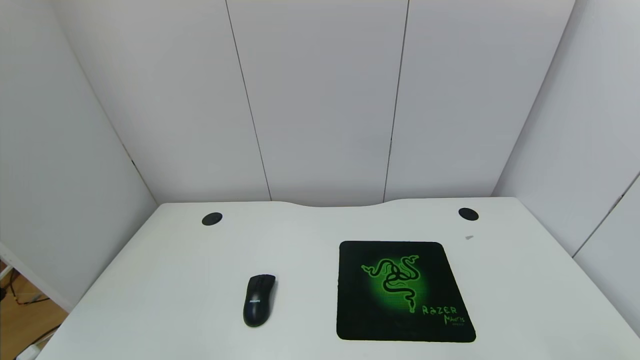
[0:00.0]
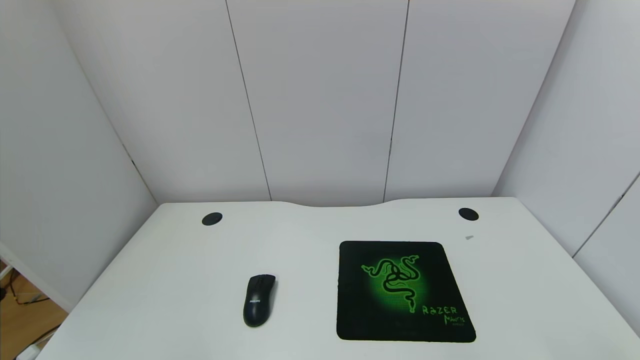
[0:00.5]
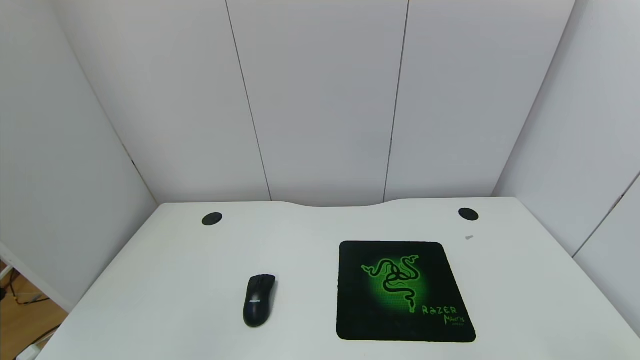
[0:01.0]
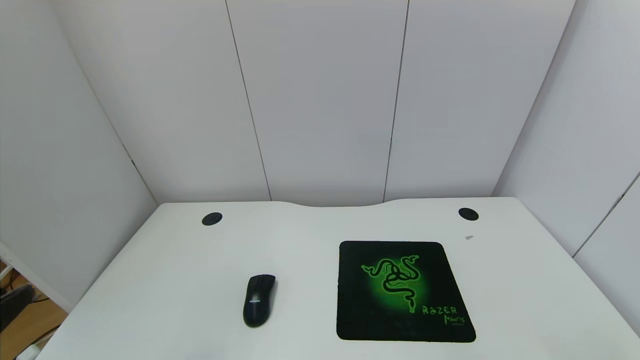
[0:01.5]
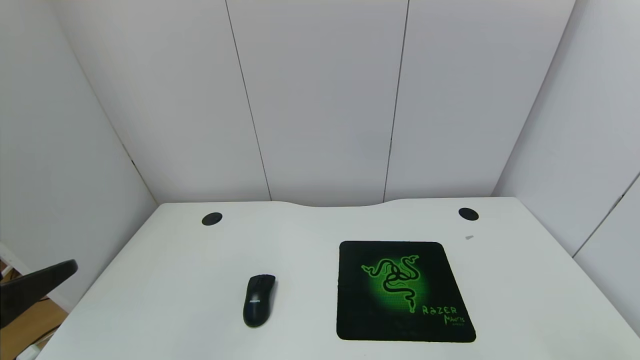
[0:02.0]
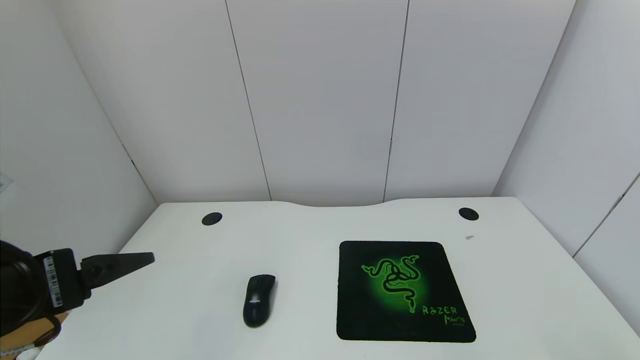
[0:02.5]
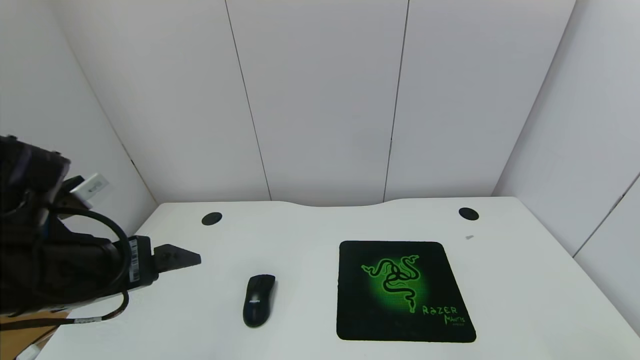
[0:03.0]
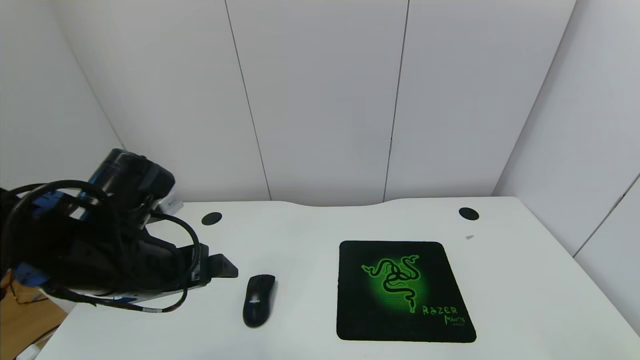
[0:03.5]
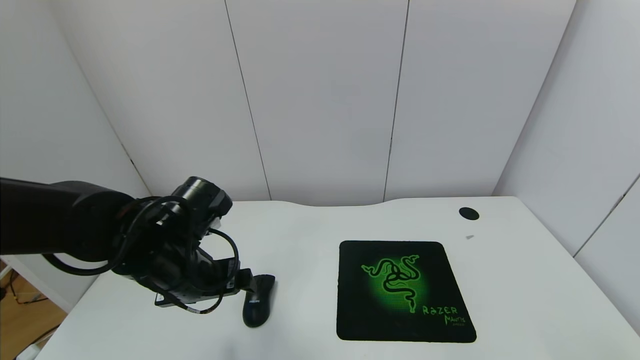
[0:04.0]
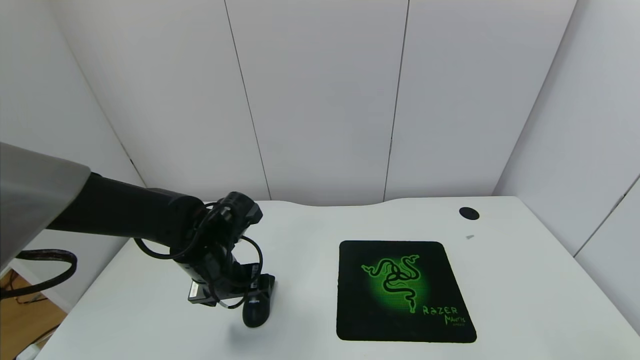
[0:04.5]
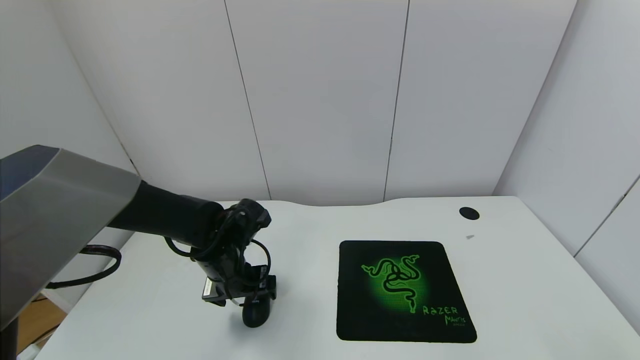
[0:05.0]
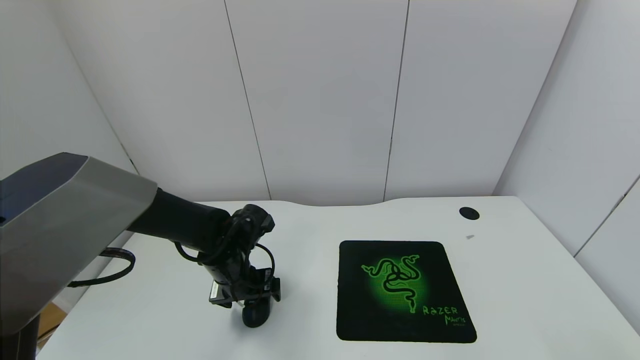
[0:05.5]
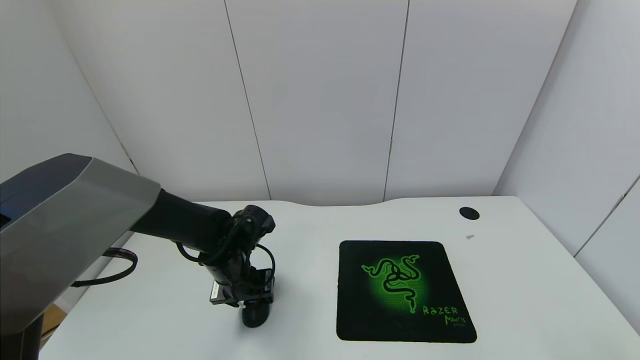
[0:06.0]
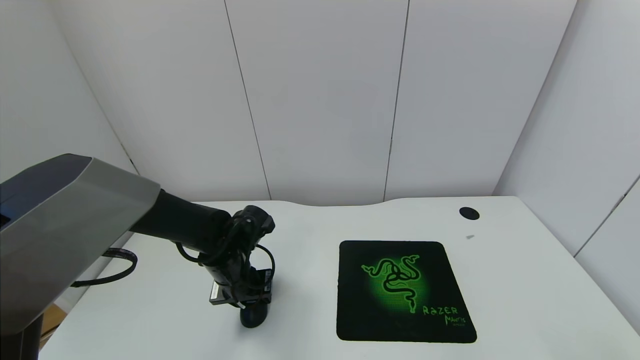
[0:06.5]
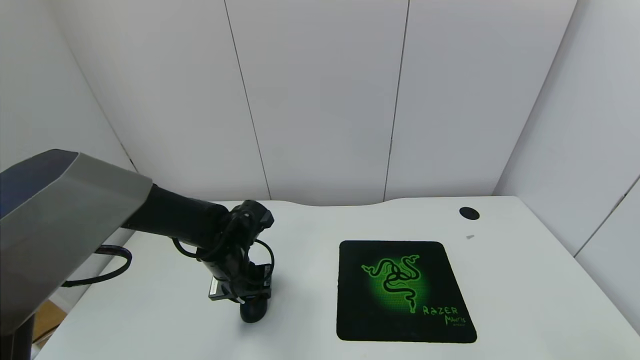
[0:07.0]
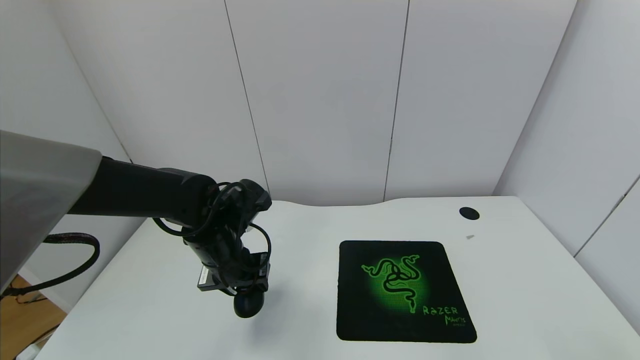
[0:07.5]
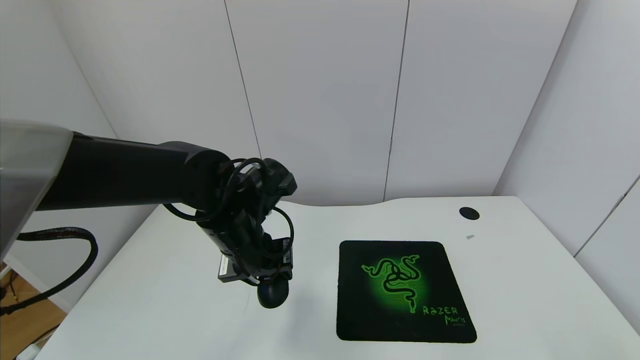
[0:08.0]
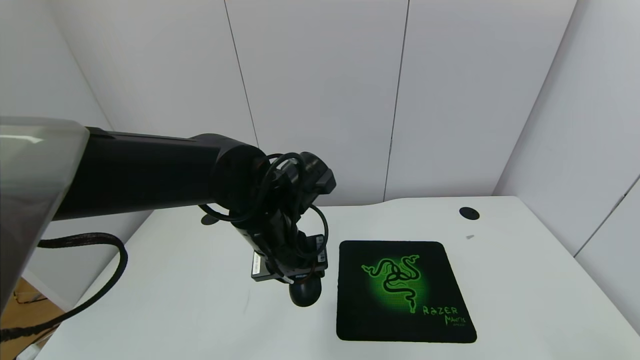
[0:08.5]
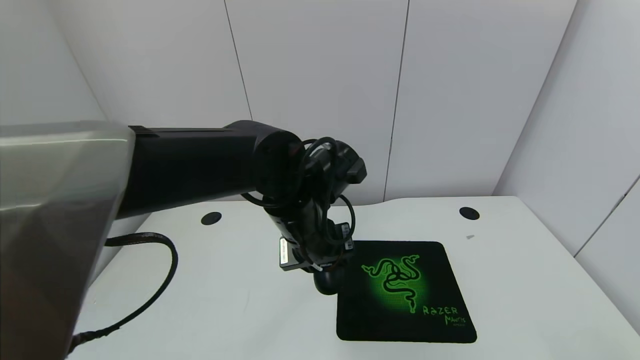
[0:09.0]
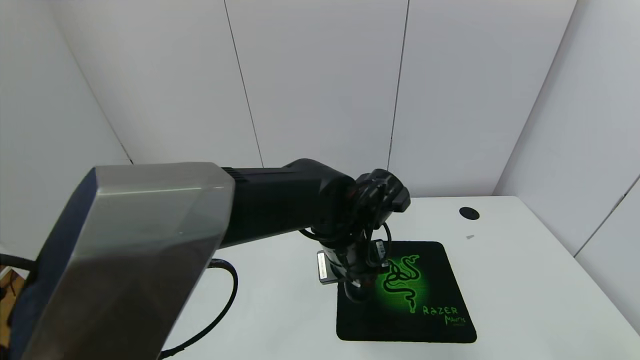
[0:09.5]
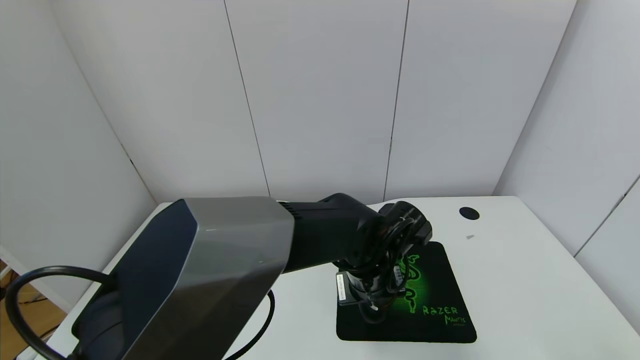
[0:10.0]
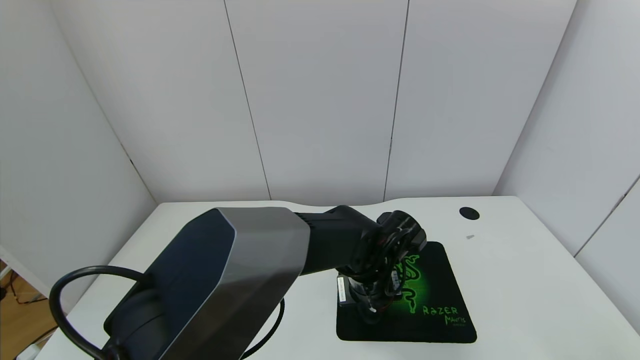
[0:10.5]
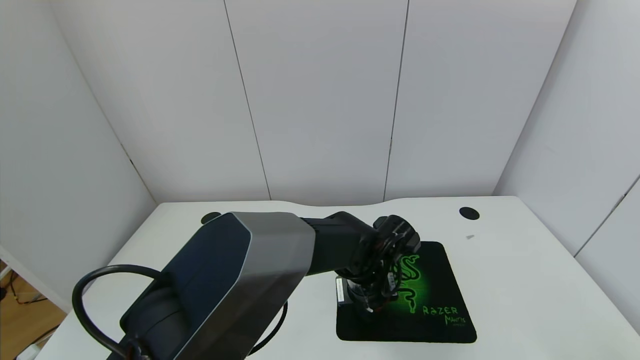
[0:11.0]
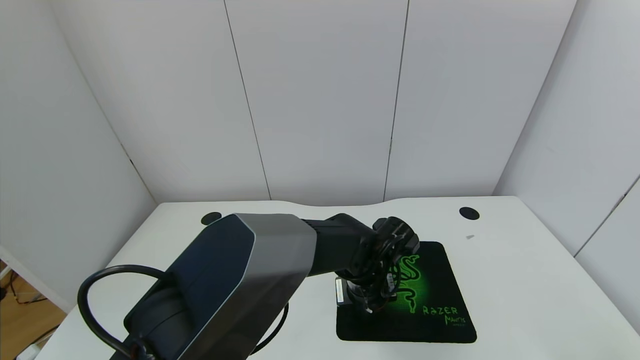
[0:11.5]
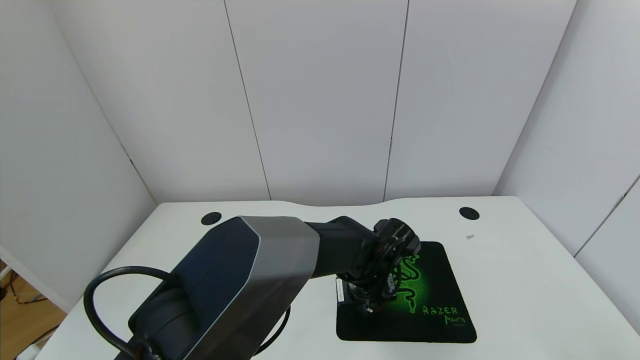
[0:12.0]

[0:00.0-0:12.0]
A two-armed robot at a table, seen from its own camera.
Task of the whole recording: use the gripper to move the mouse from one side of the table to the mouse pad on the opposite side.
Step, 0:00.0 to 0:06.5: Grasp the mouse with the left gripper.
0:00.0 to 0:02.0: The left gripper travels upward and forward by some 20 cm.
0:02.0 to 0:04.0: The left gripper is displaced forward, to the right and downward by some 25 cm.
0:04.0 to 0:06.0: The left gripper goes some 10 cm downward and forward, and closes up.
0:06.0 to 0:08.0: The left gripper heads upward, covering approximately 10 cm, and closes its fingers.
0:08.0 to 0:10.0: The left gripper goes some 15 cm to the right.
0:10.0 to 0:12.0: The left gripper goes some 5 cm downward.

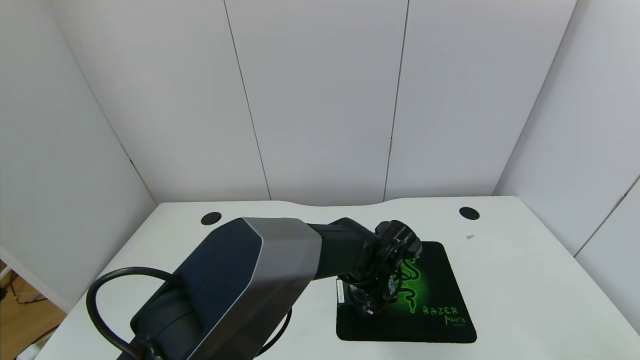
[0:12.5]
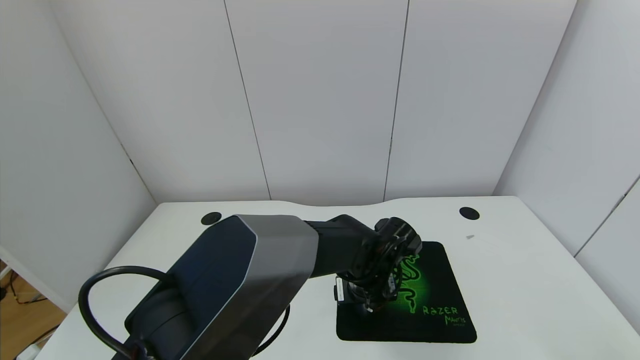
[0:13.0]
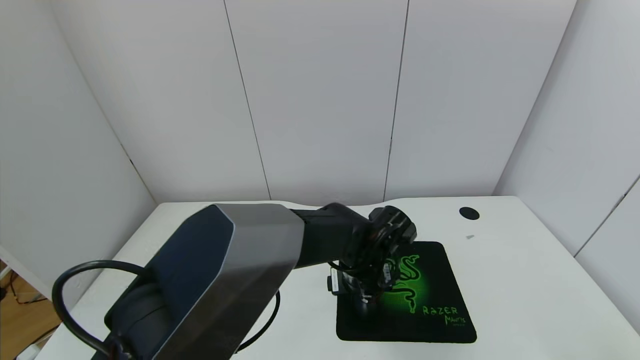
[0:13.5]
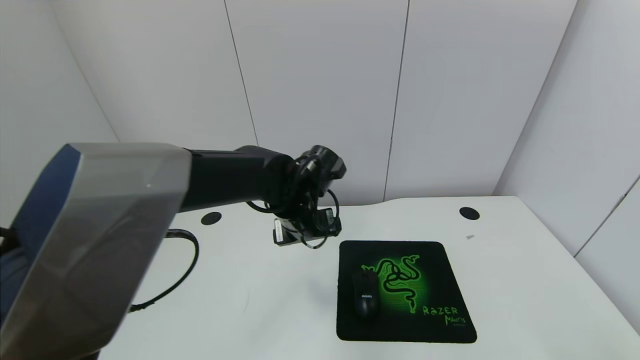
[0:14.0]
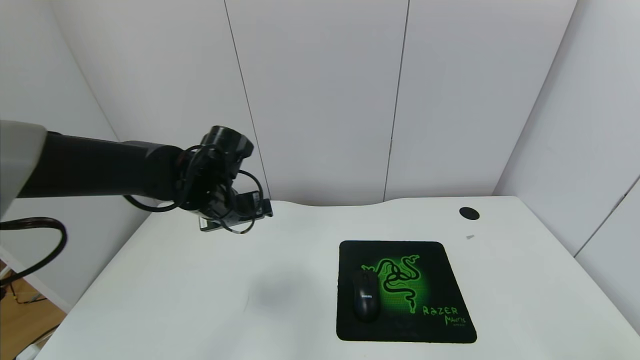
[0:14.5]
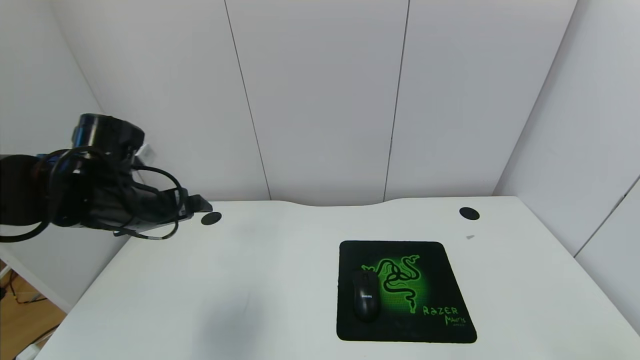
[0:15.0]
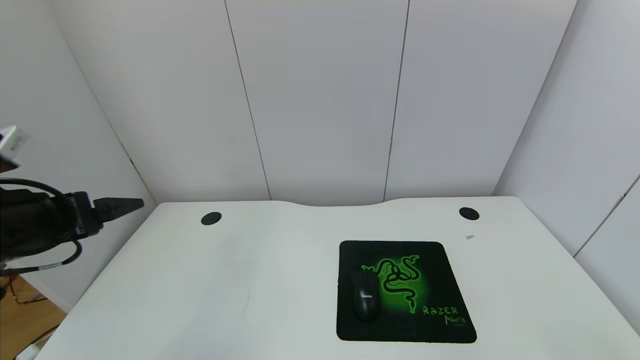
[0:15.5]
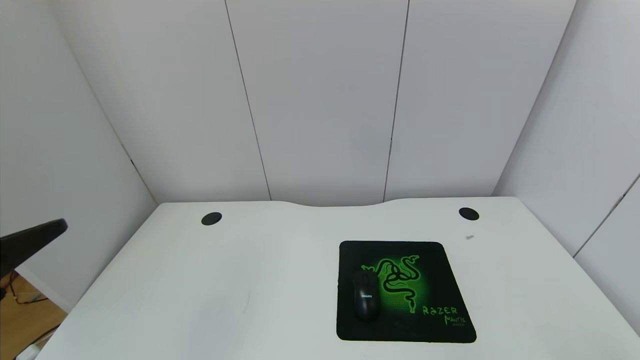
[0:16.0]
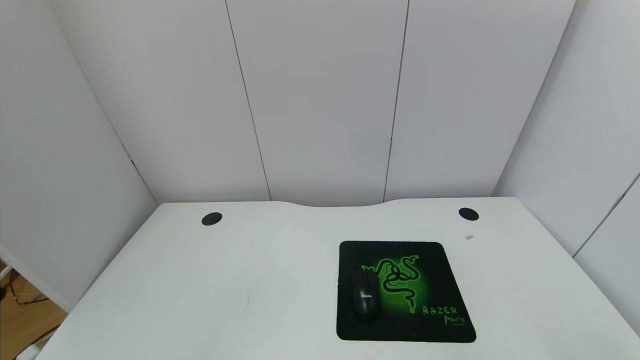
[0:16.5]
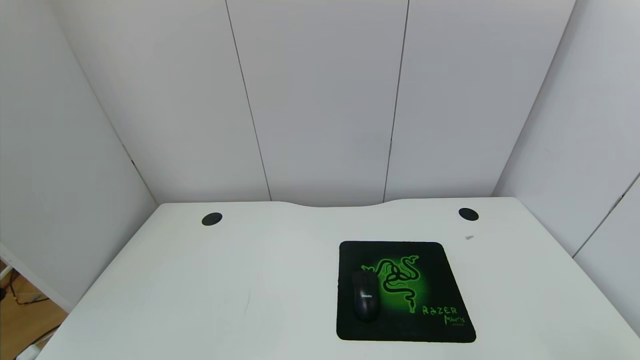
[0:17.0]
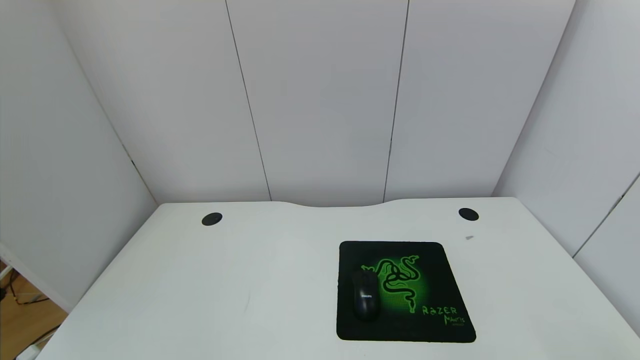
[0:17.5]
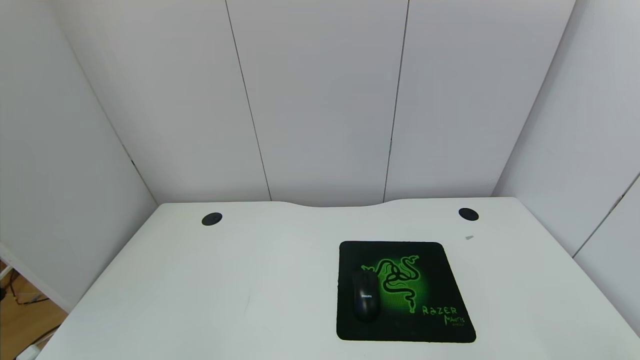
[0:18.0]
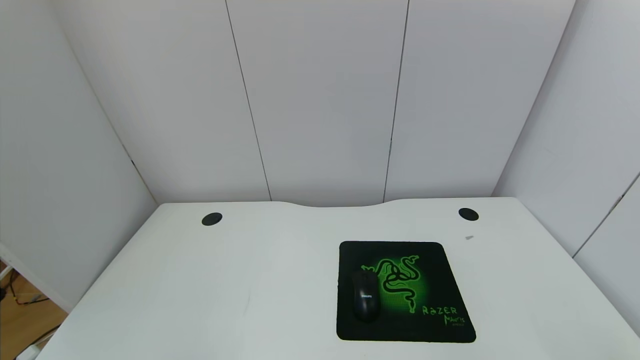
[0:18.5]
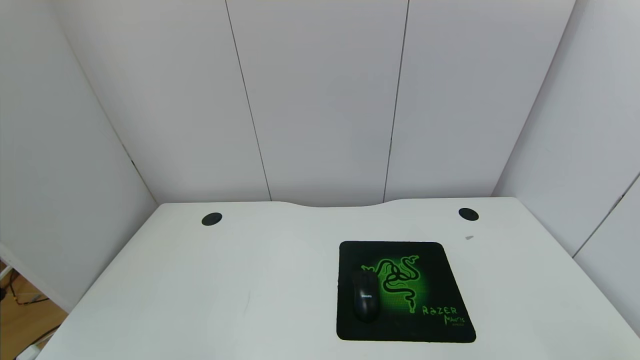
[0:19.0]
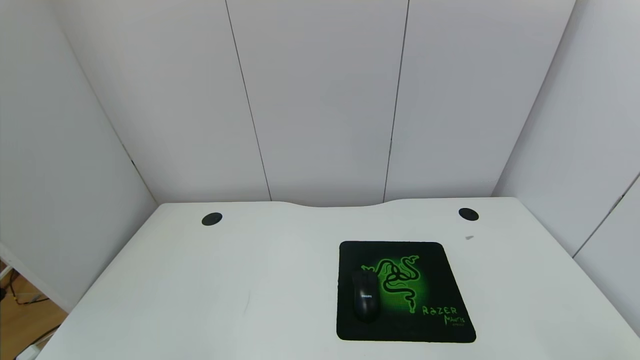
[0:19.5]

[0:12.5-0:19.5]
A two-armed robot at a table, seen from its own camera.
Task of the whole recording: use the gripper to move the mouse from one side of the table to the mouse pad on the opposite side.
0:12.5 to 0:14.5: The left gripper is displaced to the left and upward by roughly 30 cm, and opens up.
0:14.5 to 0:16.0: The left gripper heads backward, covering about 30 cm.
0:16.0 to 0:17.5: The left gripper shifts about 15 cm backward.
